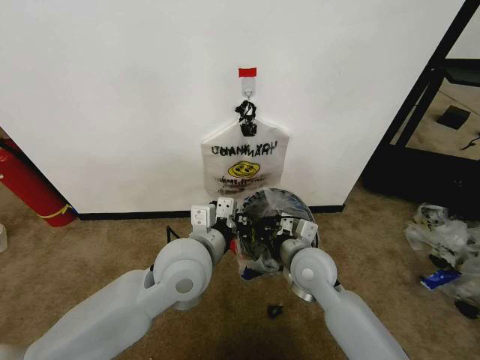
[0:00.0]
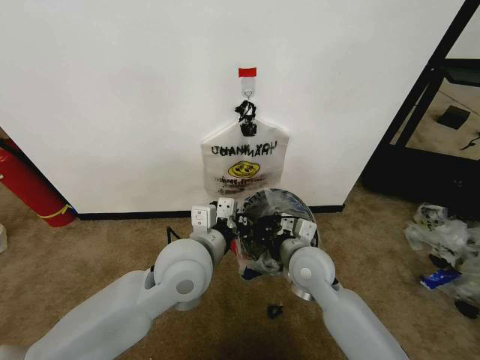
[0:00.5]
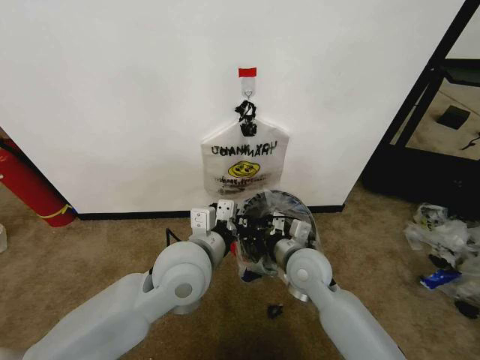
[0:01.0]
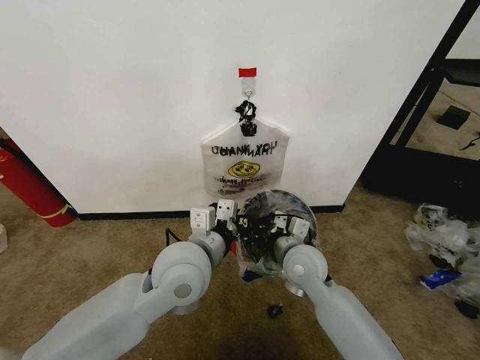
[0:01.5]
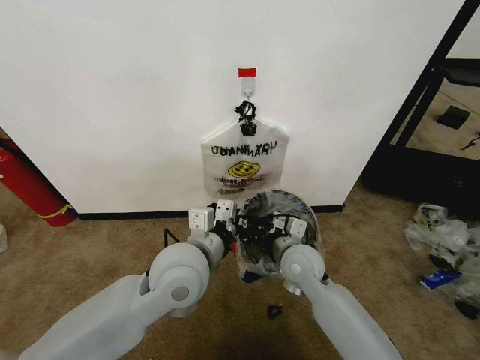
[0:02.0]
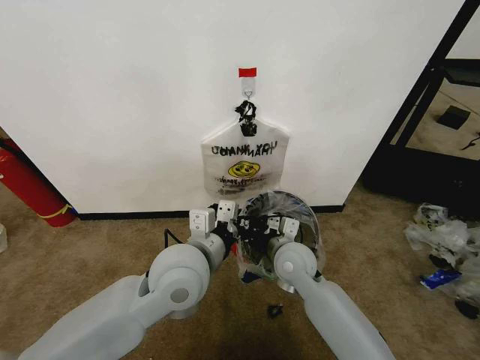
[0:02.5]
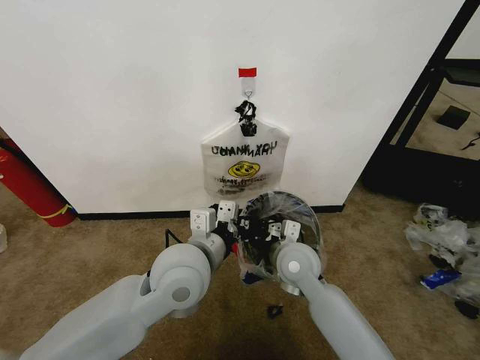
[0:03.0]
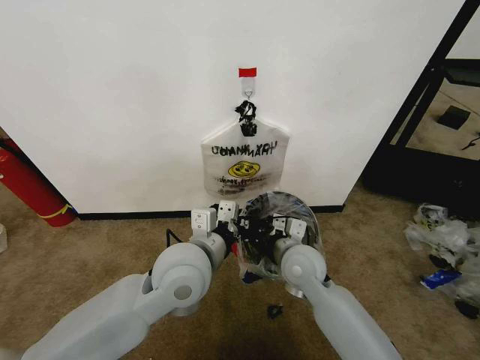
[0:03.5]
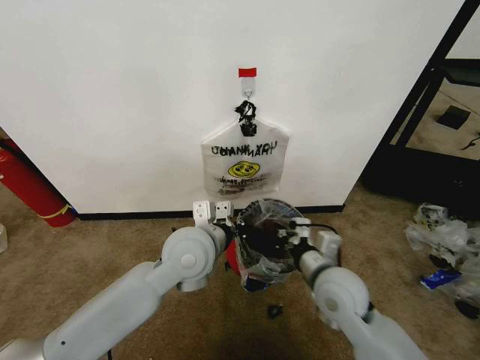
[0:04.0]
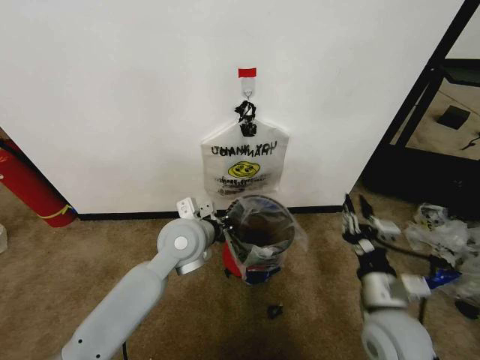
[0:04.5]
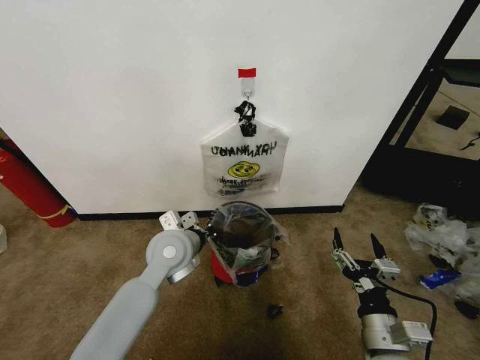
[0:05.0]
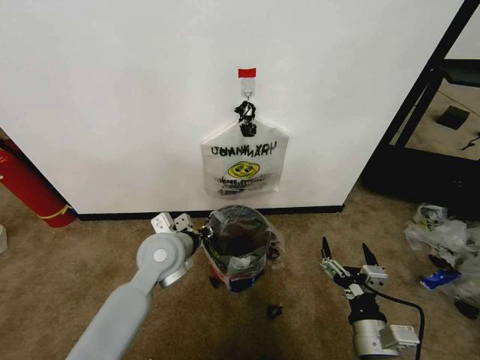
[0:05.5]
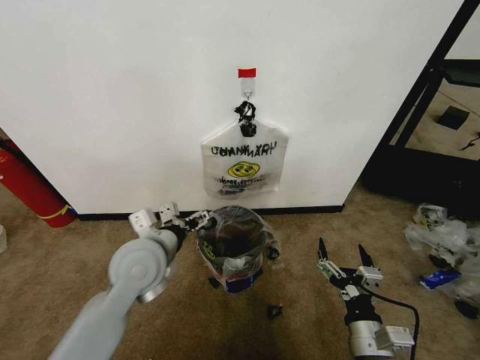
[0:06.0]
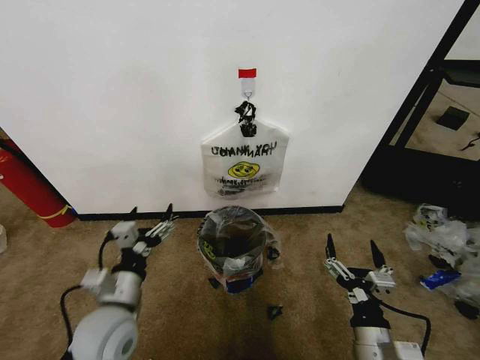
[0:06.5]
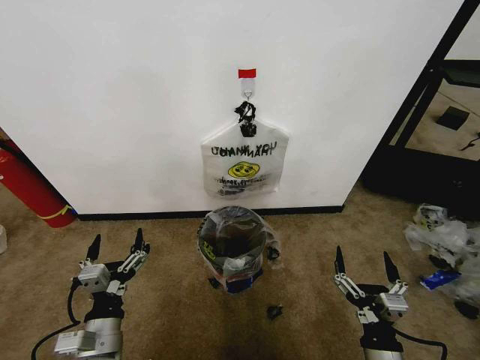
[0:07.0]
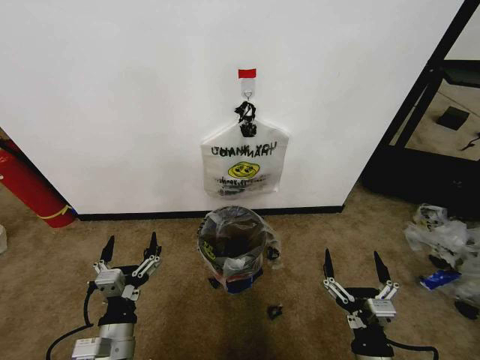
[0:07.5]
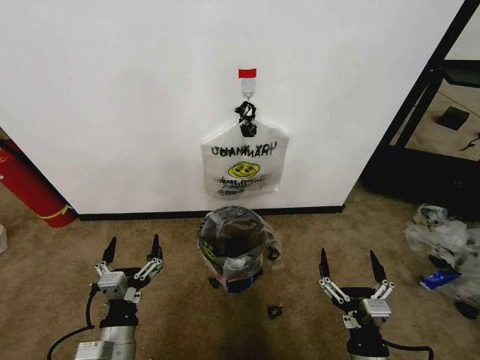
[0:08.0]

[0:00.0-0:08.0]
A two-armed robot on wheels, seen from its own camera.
Task of the whole recording: Pick up the garbage bag from the wall and place it over the trash bin.
0:00.0 to 0:02.0: There are only small adjustments of the grippers.
0:02.0 to 0:04.0: The right gripper goes approximately 10 cm backward and to the right. Meanwhile the left gripper shifts by about 5 cm.
0:04.0 to 0:06.0: The left gripper goes about 10 cm to the left, and opens its fingers. Meanwhile the right gripper is displaced backward and downward by some 15 cm, and opens.
0:06.0 to 0:08.0: The left gripper is displaced backward and downward by approximately 20 cm.

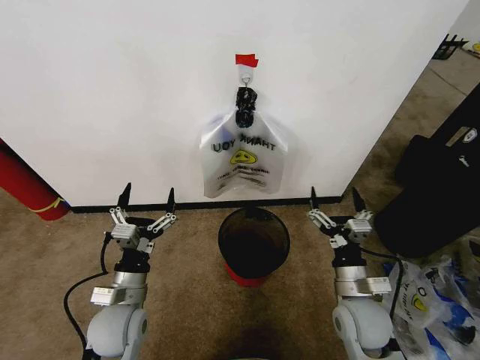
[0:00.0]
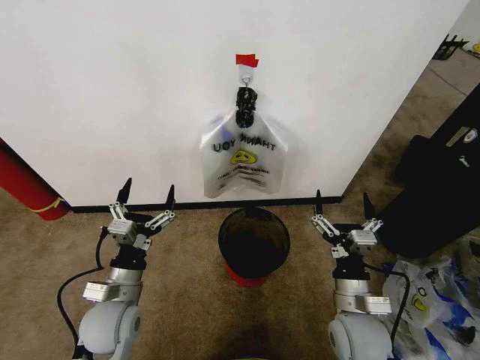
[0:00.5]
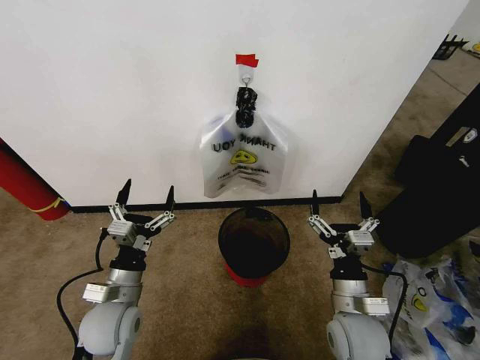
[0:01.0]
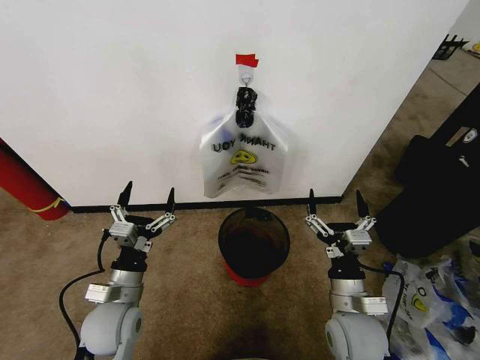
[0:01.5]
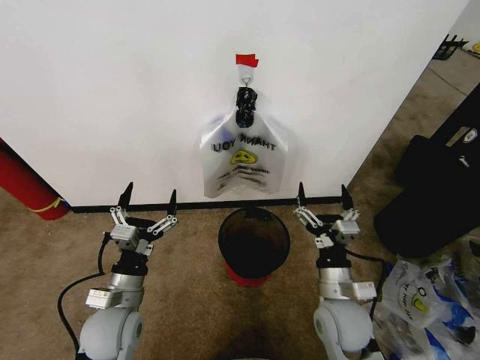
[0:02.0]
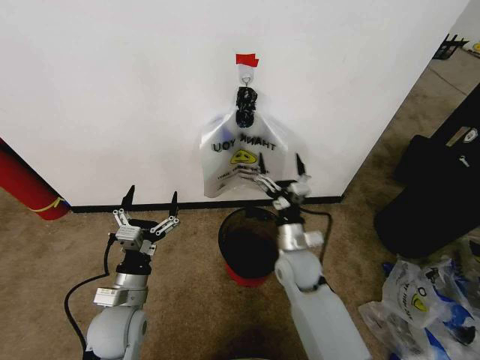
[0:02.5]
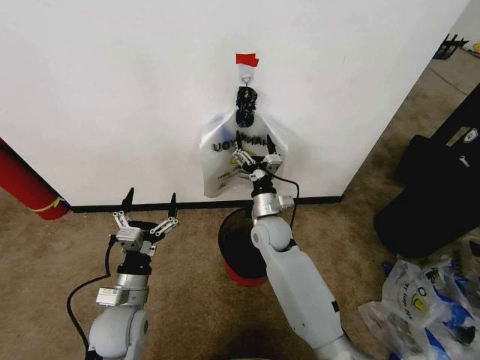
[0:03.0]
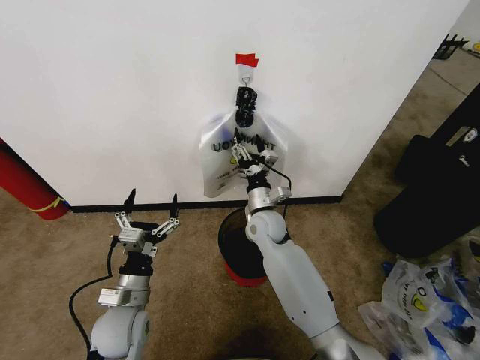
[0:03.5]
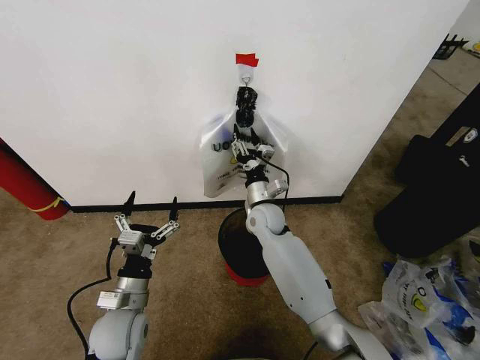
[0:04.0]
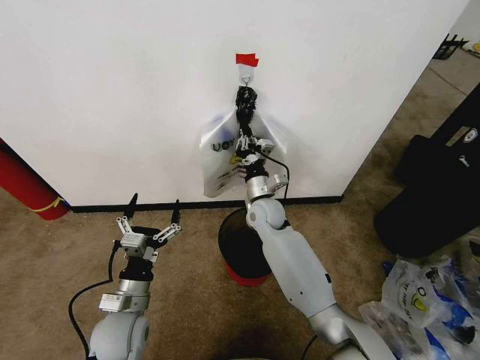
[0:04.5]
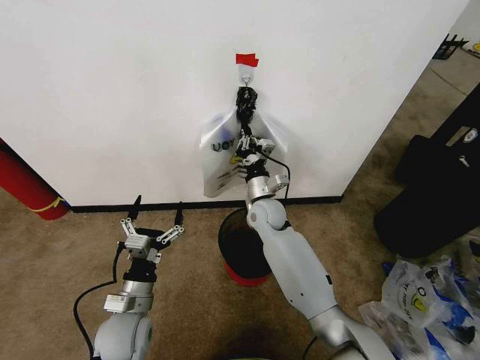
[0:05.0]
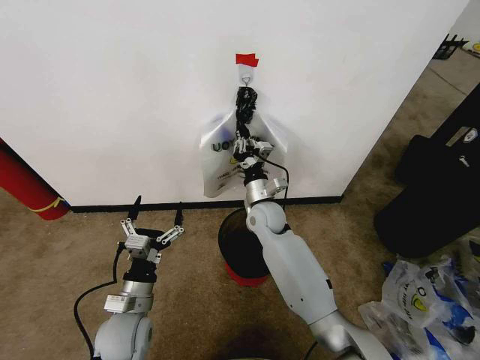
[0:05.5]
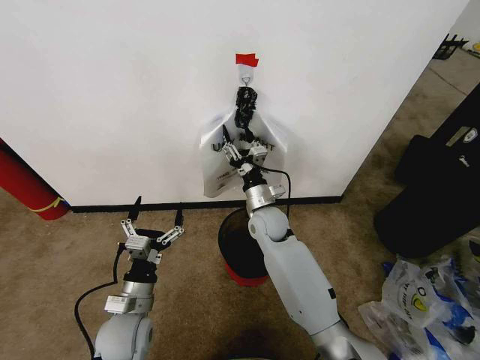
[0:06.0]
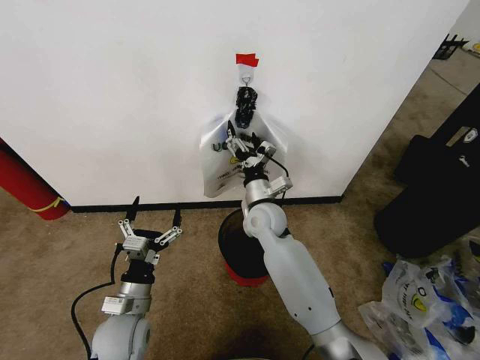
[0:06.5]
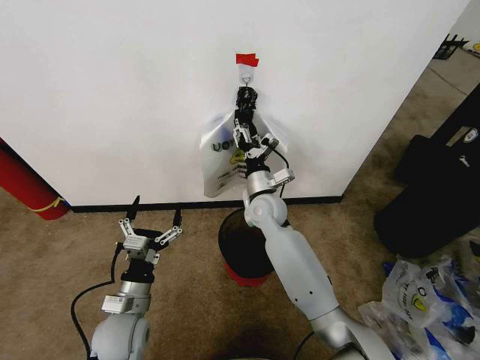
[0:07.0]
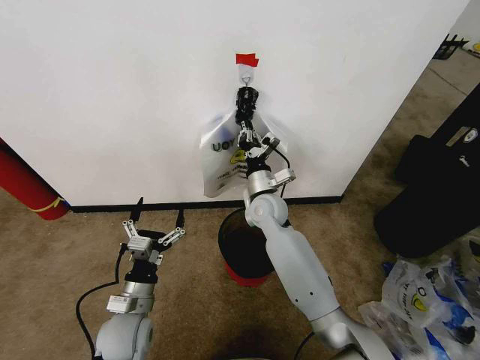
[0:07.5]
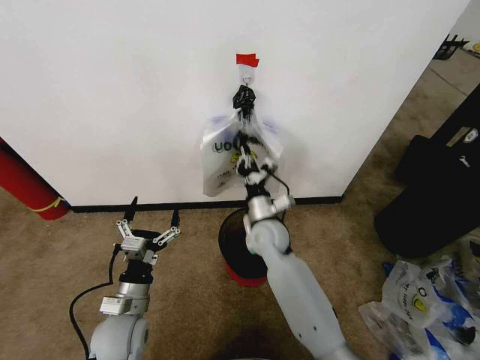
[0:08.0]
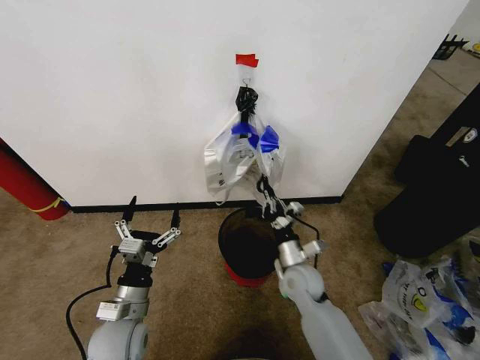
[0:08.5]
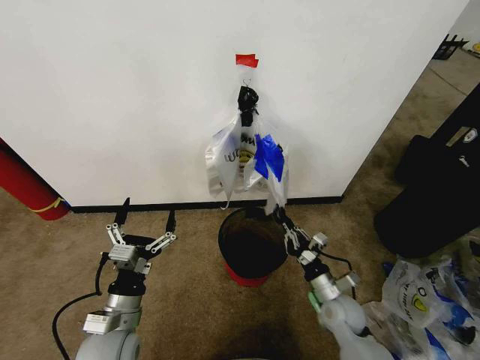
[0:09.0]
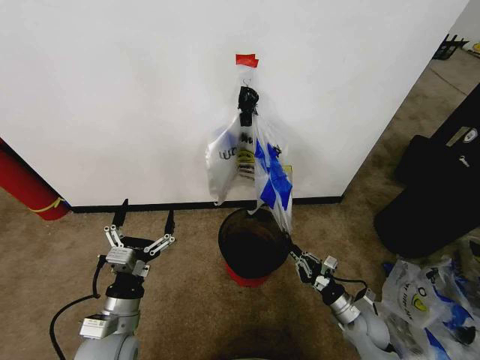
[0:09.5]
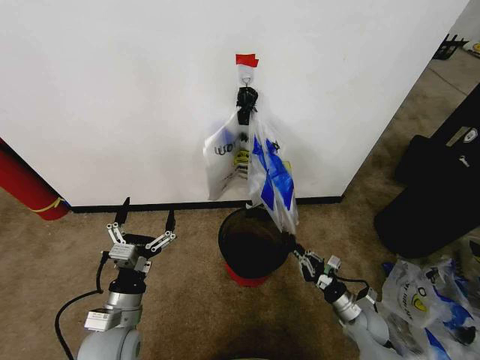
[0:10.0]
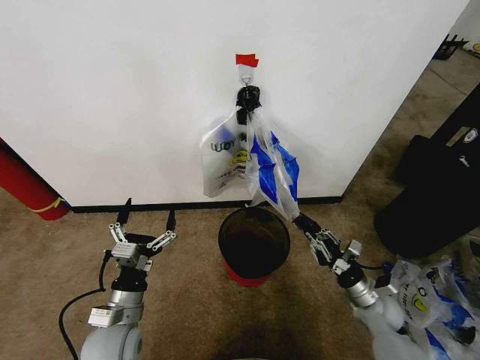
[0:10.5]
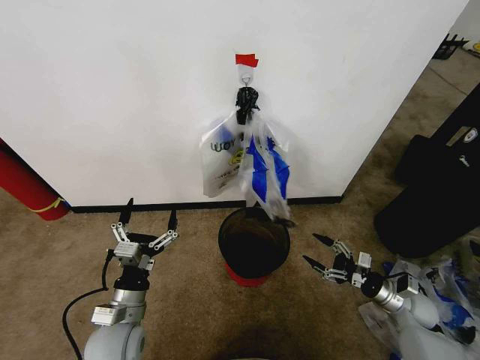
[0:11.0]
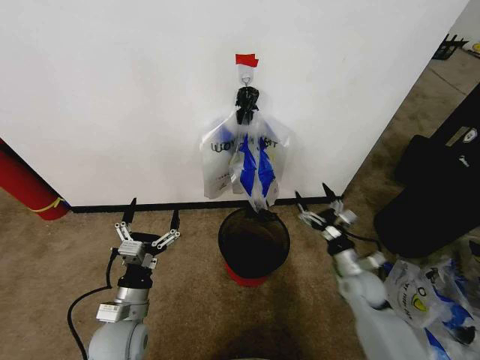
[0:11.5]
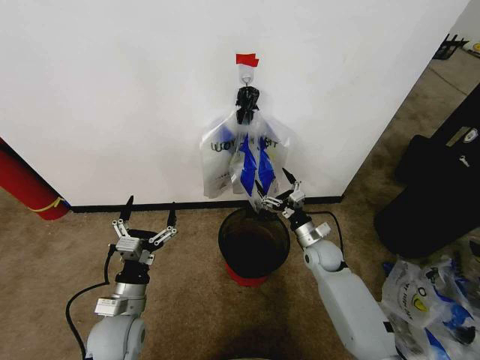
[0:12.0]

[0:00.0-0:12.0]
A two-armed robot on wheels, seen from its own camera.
Task of the whole recording: Pick up the garbage bag from the wall and place it over the trash bin.
0:02.0 to 0:04.0: The right gripper is displaced forward and to the left by roughly 25 cm, and closes up.
0:04.0 to 0:06.0: The right gripper closes, then reopens.
0:06.0 to 0:08.0: The right gripper closes its fingers.
0:08.0 to 0:10.0: The right gripper goes about 35 cm to the right, downward and backward.
0:10.0 to 0:12.0: The right gripper goes some 20 cm forward, to the left and upward, and opens.

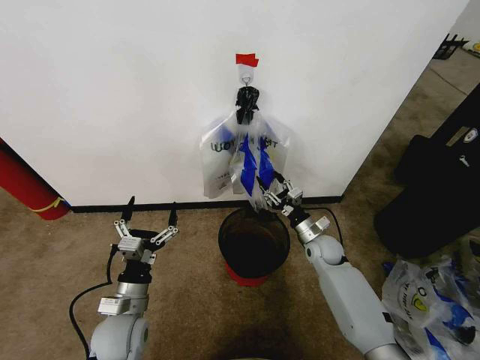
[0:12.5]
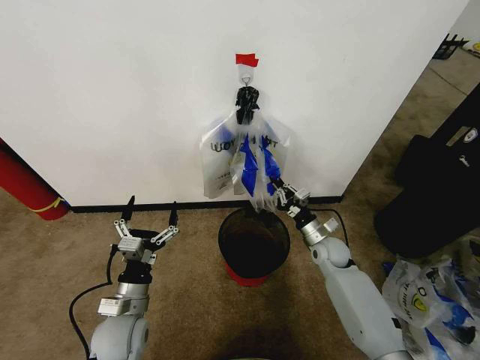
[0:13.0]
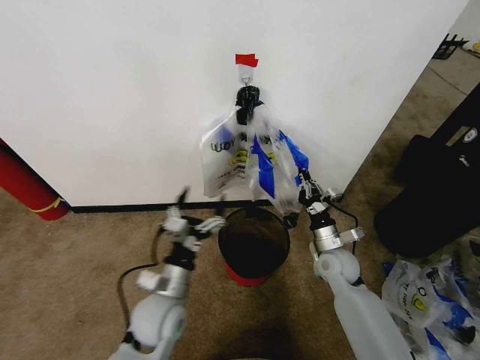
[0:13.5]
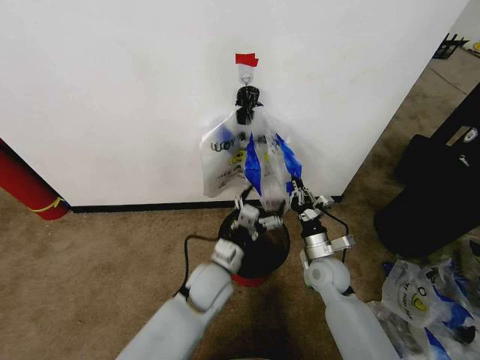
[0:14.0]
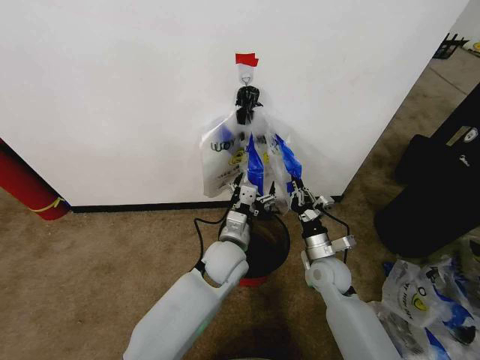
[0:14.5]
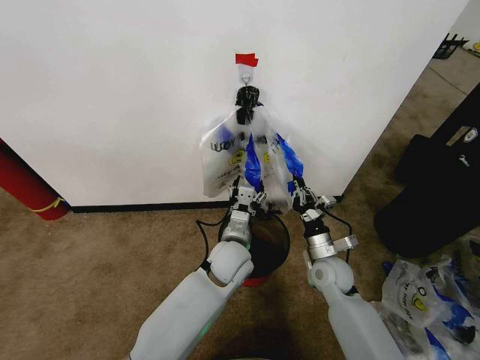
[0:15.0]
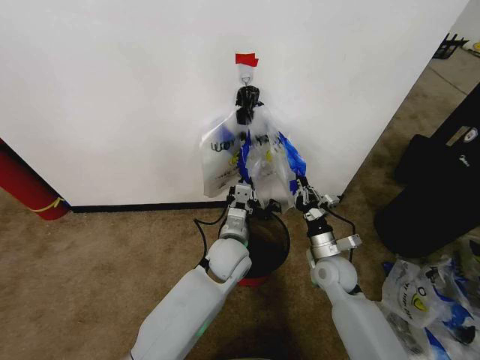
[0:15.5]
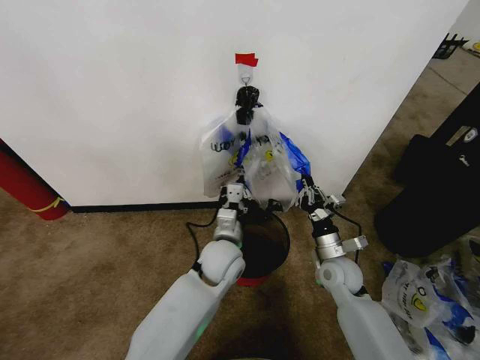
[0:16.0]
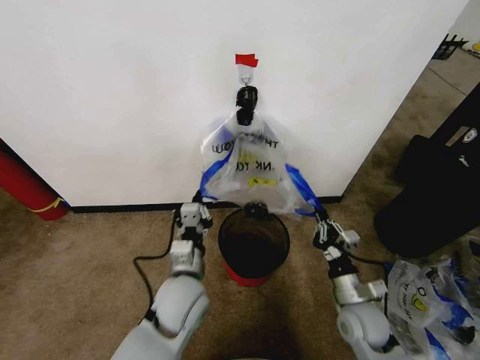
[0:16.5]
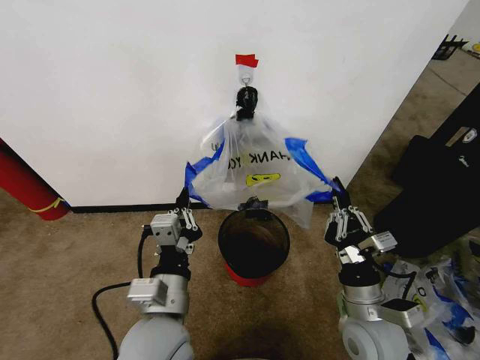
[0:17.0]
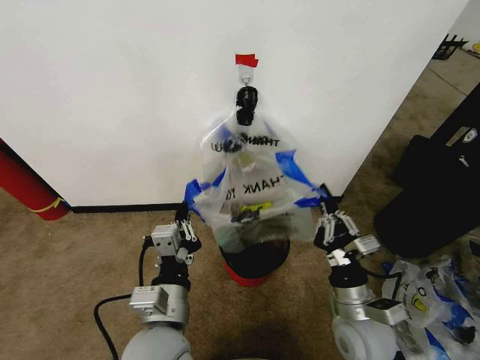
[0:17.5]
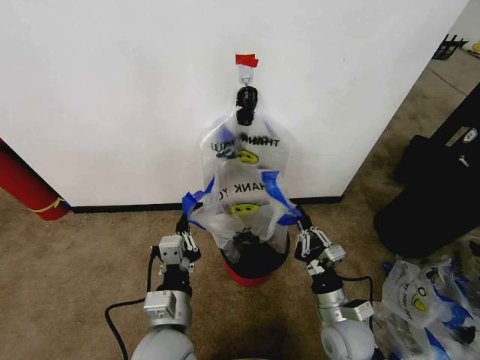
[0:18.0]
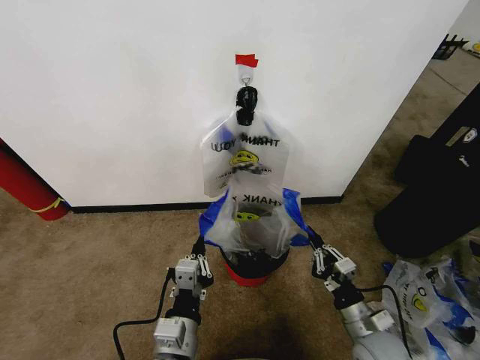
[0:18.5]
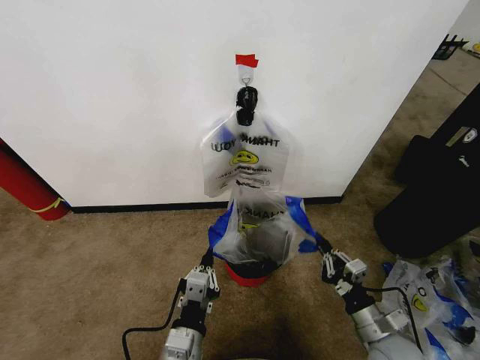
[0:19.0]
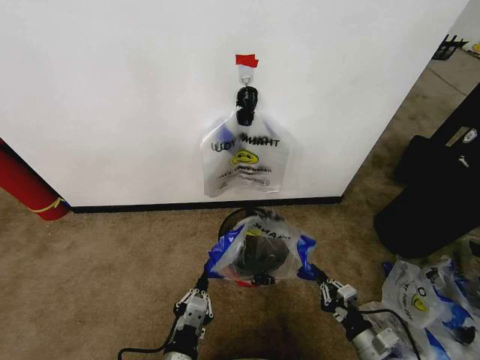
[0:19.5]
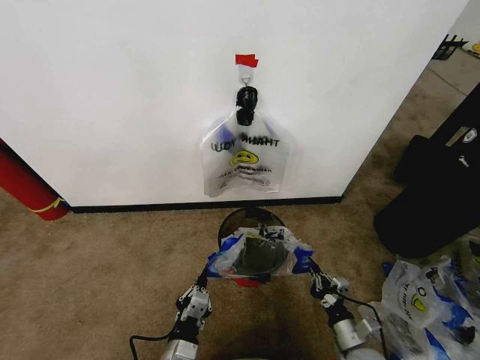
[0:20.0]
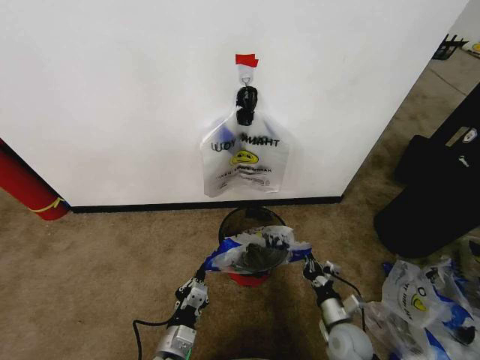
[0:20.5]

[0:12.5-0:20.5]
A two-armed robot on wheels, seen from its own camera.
Task of the whole recording: Pick up the garbage bag from the wall and place it over the trash bin.
0:12.5 to 0:14.5: The left gripper travels to the right and forward by approximately 25 cm. The right gripper shifts roughly 10 cm backward, and closes up.
0:14.5 to 0:16.5: The right gripper heads backward, covering roughly 10 cm; the left gripper shifts roughly 10 cm backward and to the left, and closes up.
0:16.5 to 0:18.5: The left gripper moves backward, roughly 15 cm, while the right gripper is displaced backward by roughly 5 cm, and travels upward and back again, about 10 cm each way.
0:18.5 to 0:20.5: Both grippers travel together downward, about 10 cm.
